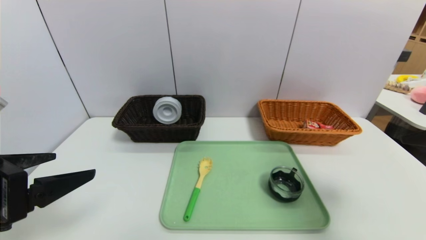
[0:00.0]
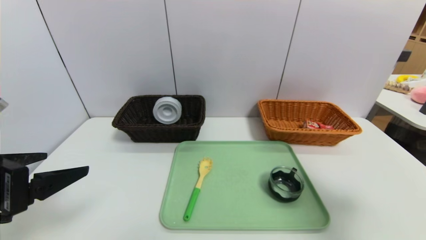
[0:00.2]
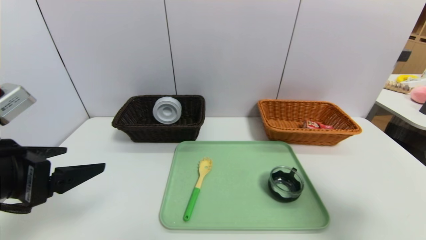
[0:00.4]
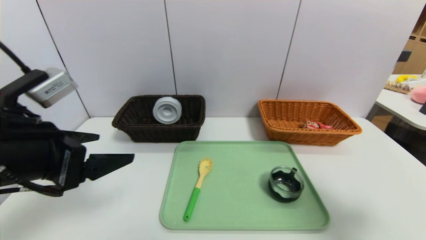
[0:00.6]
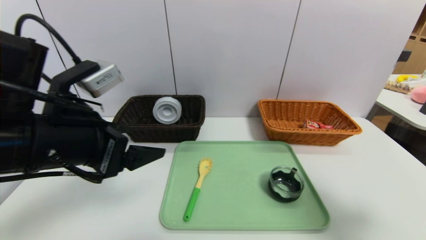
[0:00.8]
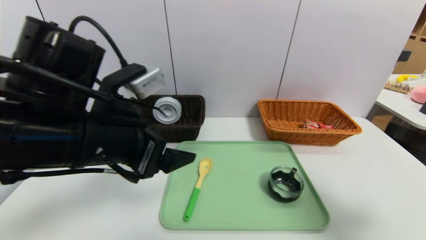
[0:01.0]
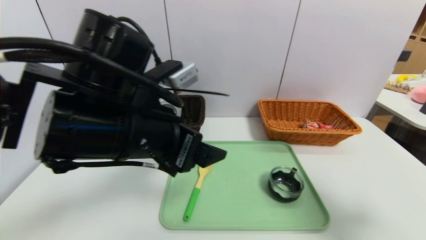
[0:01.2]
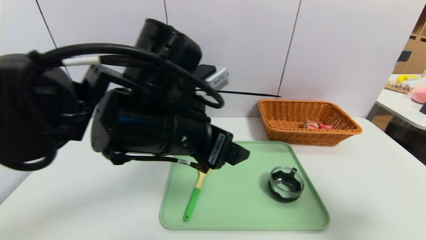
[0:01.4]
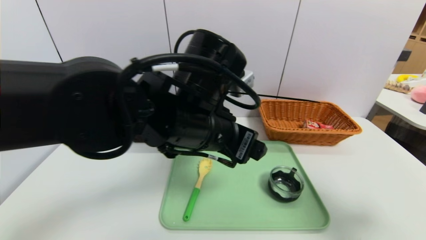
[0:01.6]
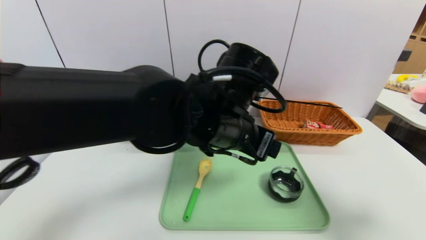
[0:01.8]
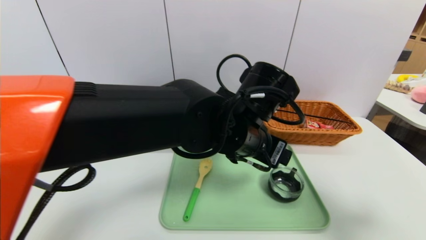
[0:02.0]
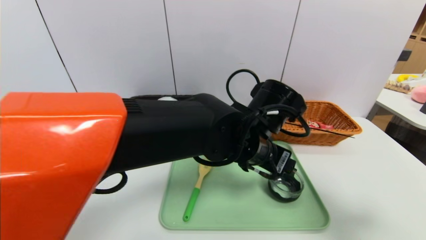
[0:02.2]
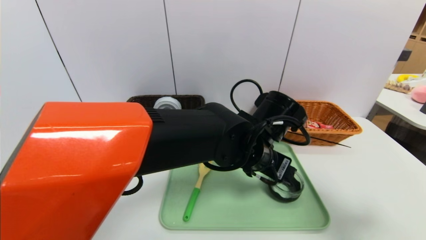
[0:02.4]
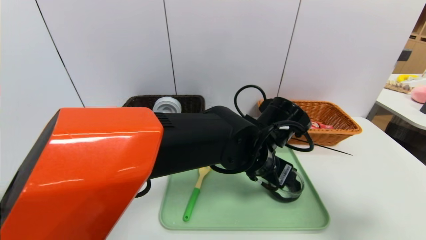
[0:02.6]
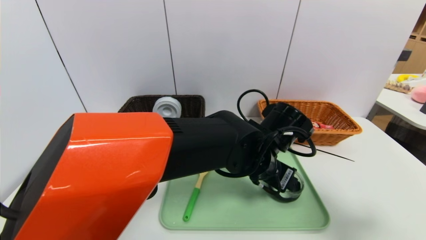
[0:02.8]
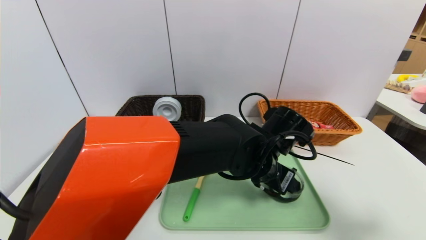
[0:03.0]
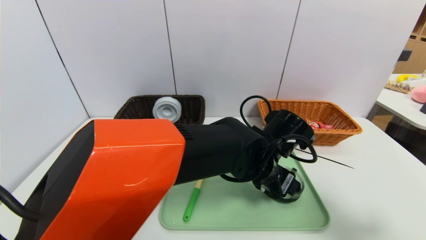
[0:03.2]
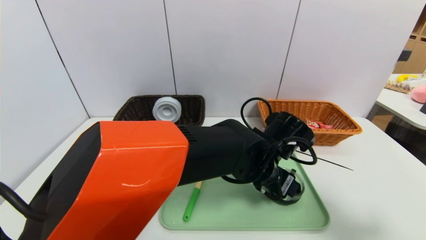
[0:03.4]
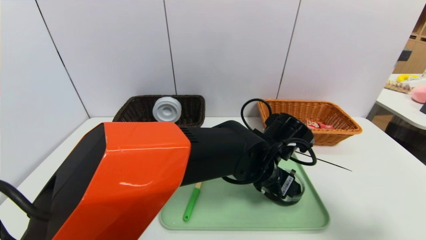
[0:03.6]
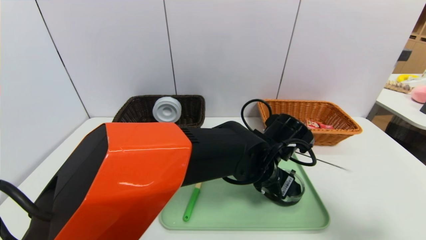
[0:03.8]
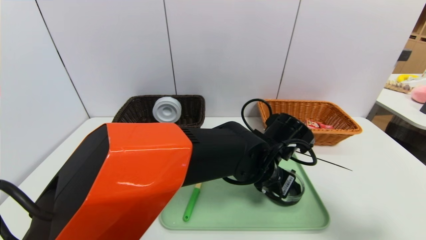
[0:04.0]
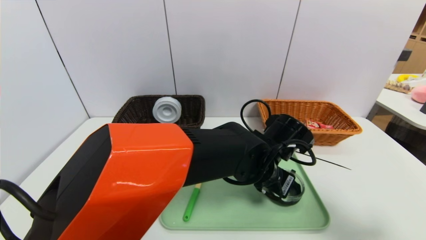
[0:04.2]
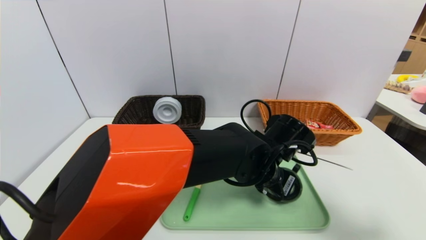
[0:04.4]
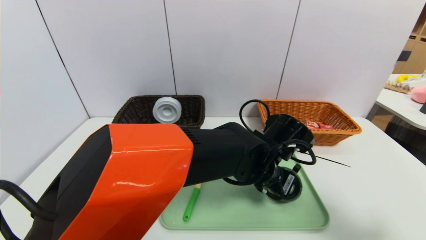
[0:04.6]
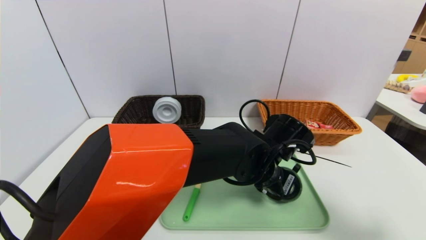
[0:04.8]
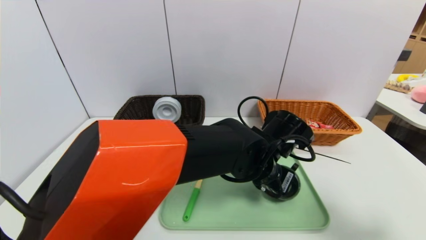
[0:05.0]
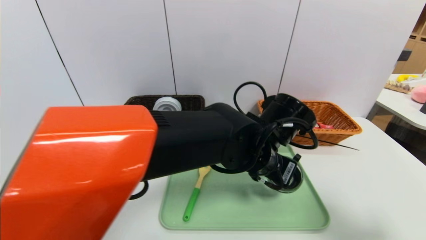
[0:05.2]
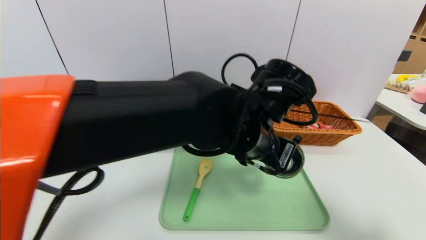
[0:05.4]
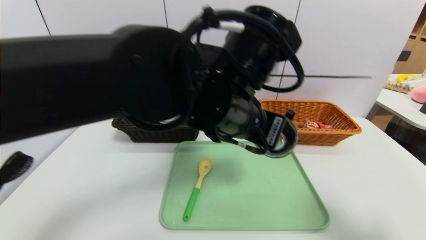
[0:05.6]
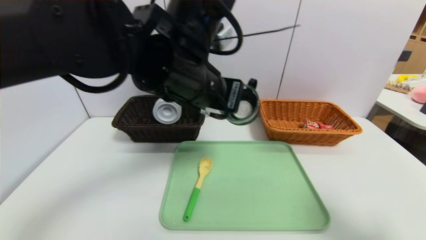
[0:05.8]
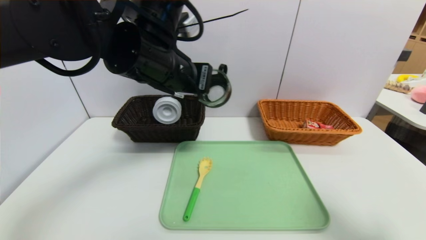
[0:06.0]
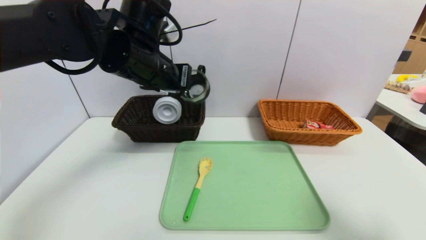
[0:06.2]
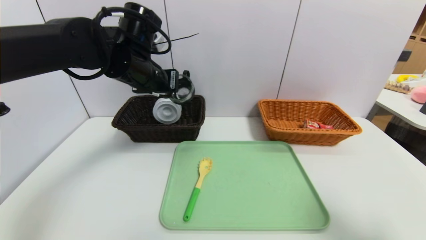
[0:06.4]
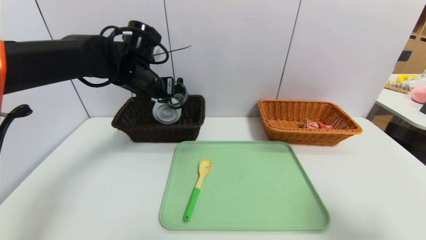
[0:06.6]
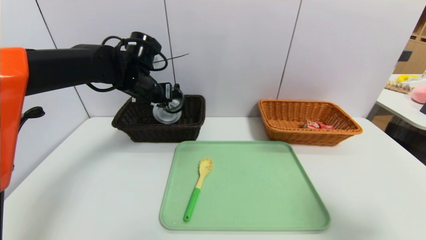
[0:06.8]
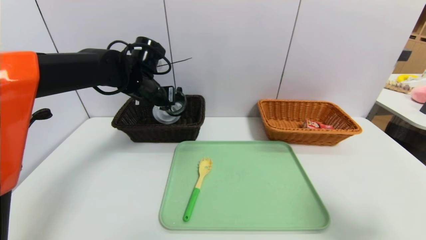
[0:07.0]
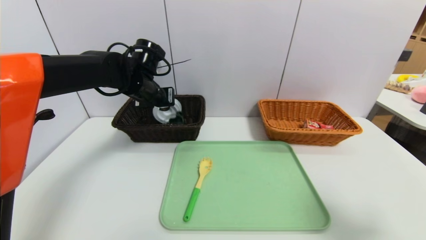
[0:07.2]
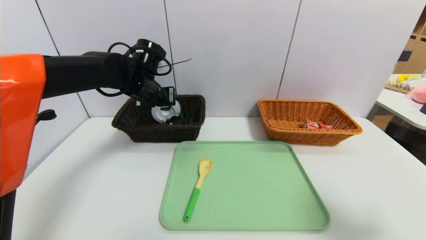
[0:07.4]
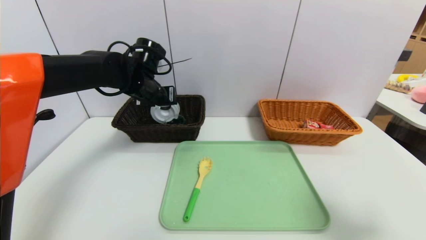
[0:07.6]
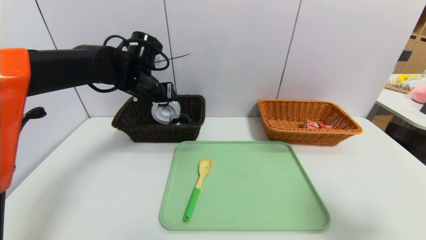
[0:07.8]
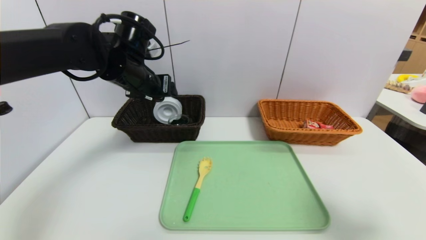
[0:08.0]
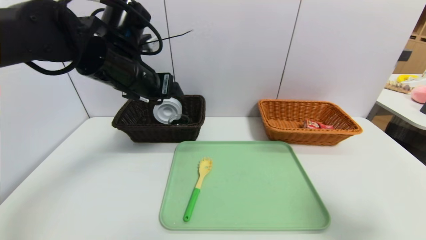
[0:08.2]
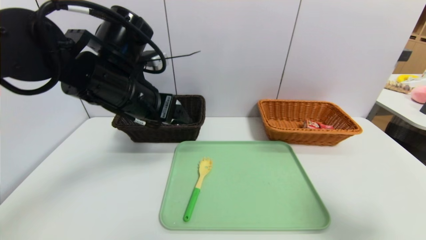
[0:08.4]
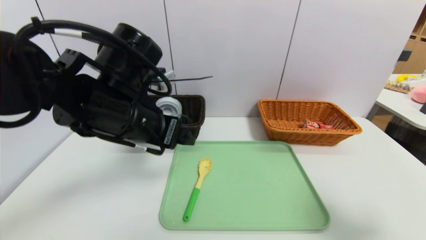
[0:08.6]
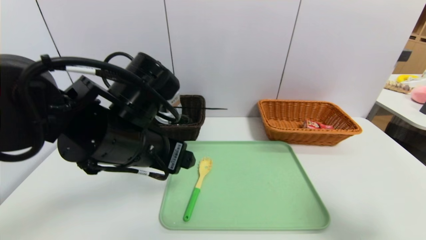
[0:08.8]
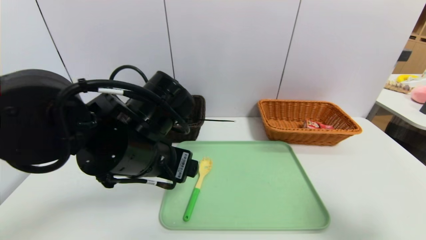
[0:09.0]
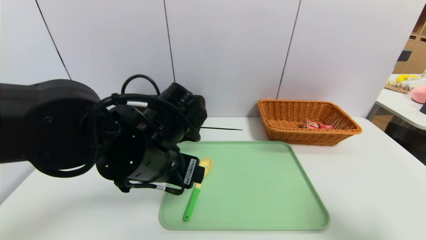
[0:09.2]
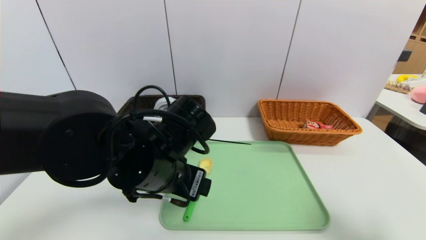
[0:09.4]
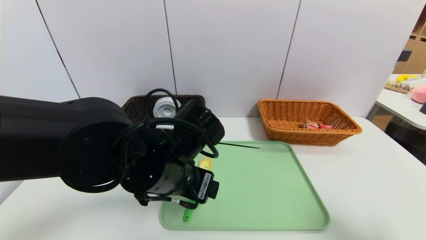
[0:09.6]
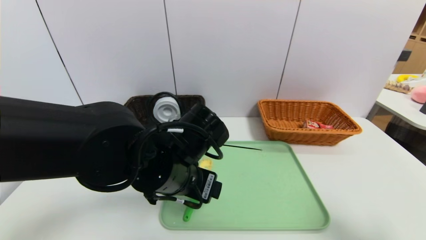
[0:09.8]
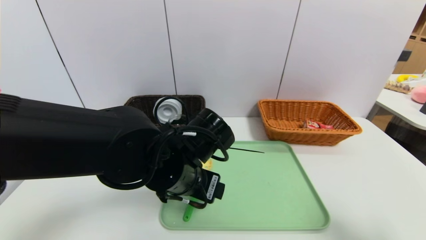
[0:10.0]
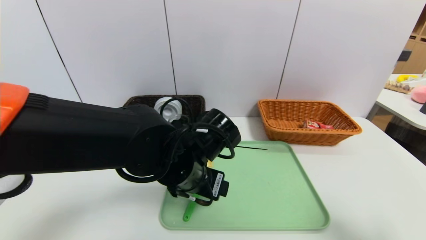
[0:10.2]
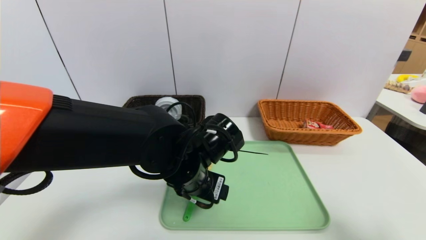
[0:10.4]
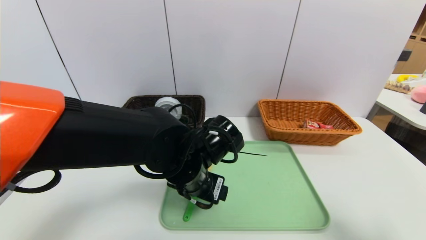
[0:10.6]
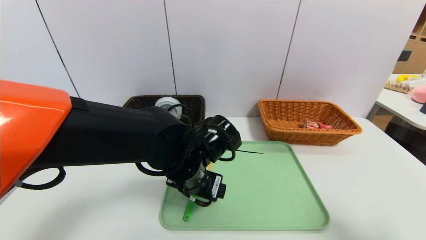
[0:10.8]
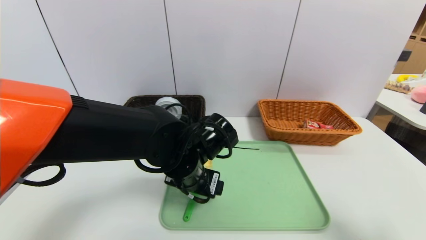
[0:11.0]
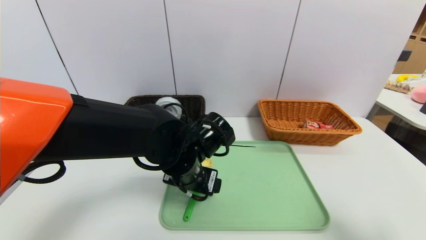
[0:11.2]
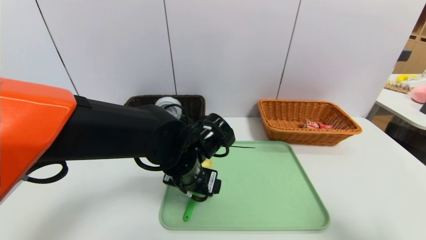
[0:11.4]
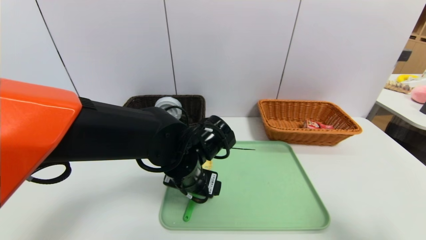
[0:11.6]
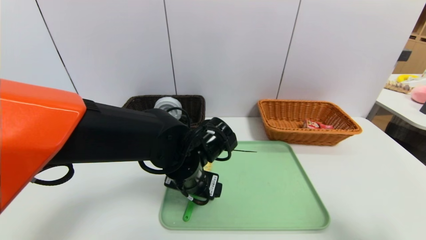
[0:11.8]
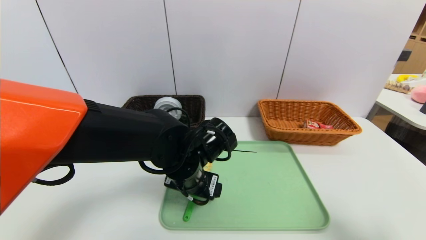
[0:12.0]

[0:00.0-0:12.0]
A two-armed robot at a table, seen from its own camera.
Task of the whole recording: place the food in the right basket with the right gripper, and place the non food items in the left basket with the left gripper.
Step, 0:00.0 to 0:07.6: Grasp the blue cup and put it in the left basket.
0:00.0 to 0:01.6: The left gripper shifts some 25 cm to the right and forward; the right gripper moves about 5 cm.
0:01.6 to 0:03.0: The left gripper goes roughly 15 cm to the right and downward.
0:03.0 to 0:04.4: The left gripper closes its fingers.
0:04.4 to 0:06.0: The left gripper moves upward and to the left, some 25 cm.
0:06.0 to 0:07.6: The left gripper moves forward, downward and to the left, about 15 cm, and opens its fingers.
0:07.6 to 0:09.0: The left gripper is displaced backward by some 20 cm.
0:09.0 to 0:10.4: The left gripper travels downward and to the right by some 10 cm.
0:10.4 to 0:12.0: The grippers move only a little.

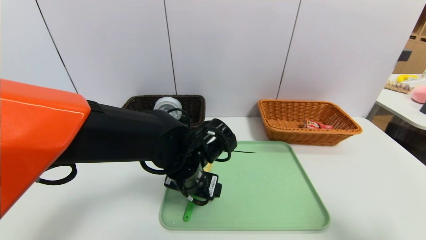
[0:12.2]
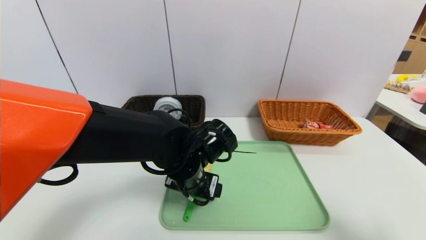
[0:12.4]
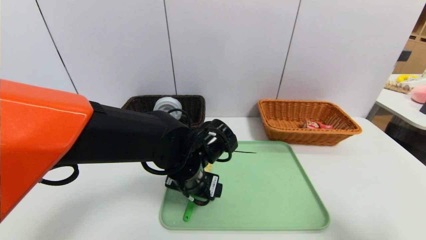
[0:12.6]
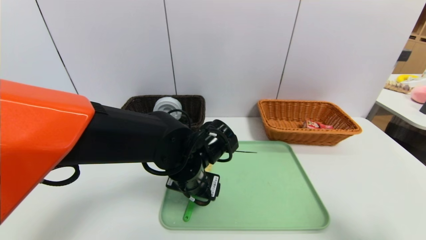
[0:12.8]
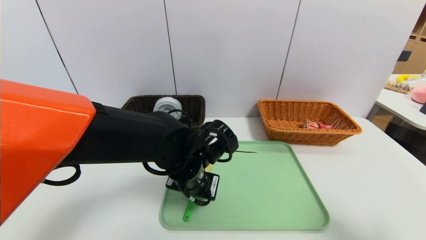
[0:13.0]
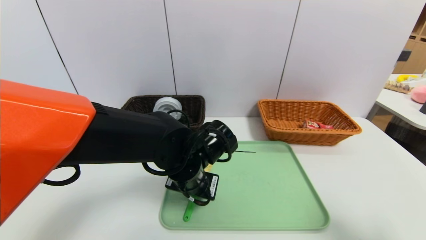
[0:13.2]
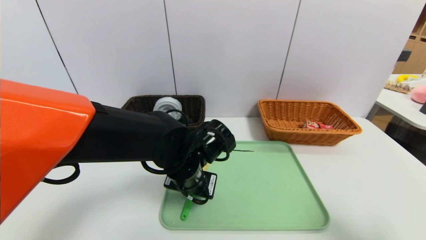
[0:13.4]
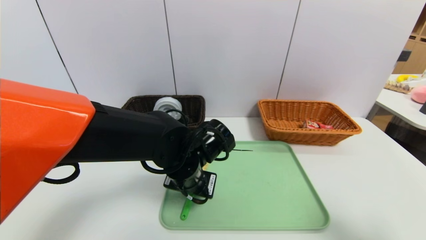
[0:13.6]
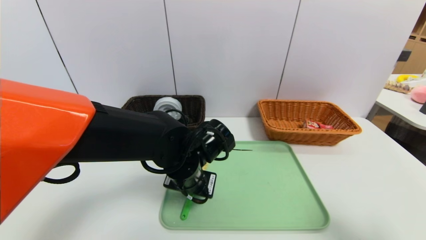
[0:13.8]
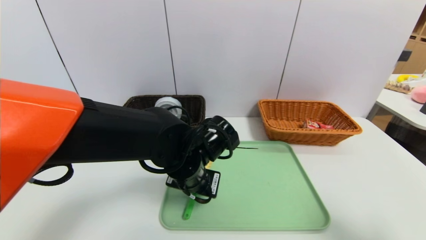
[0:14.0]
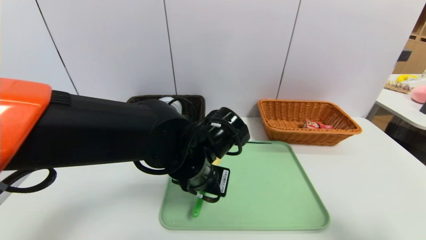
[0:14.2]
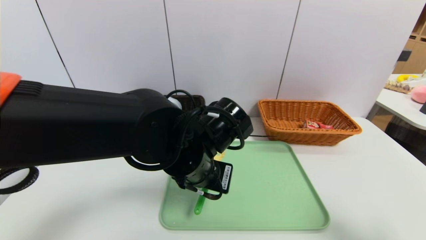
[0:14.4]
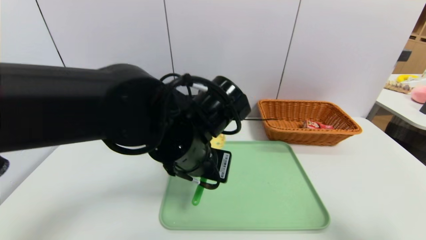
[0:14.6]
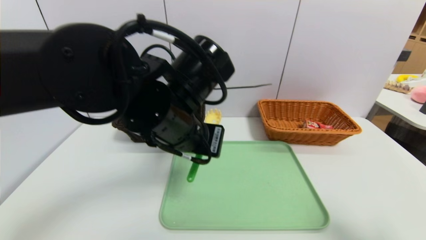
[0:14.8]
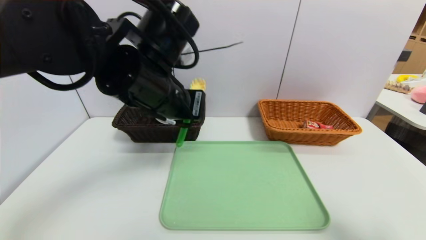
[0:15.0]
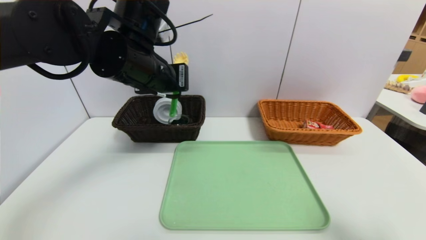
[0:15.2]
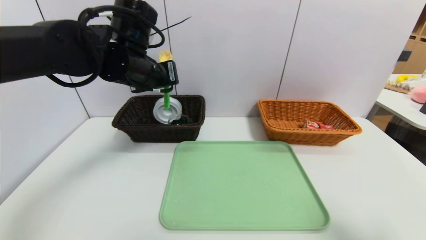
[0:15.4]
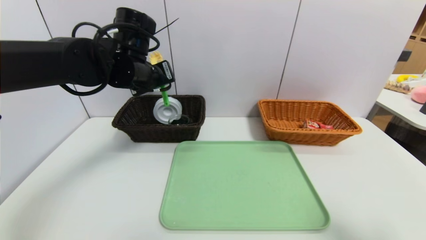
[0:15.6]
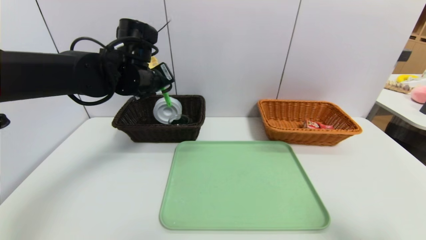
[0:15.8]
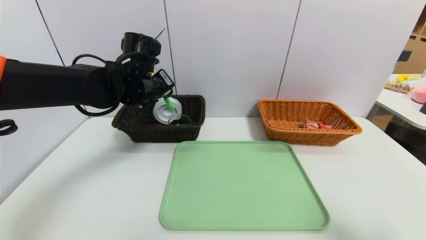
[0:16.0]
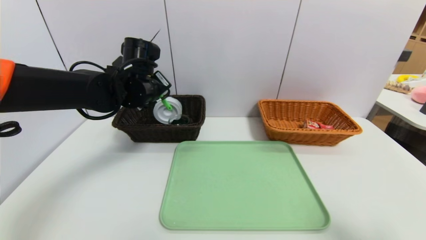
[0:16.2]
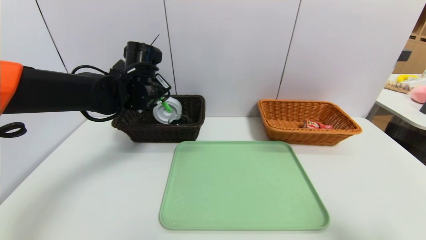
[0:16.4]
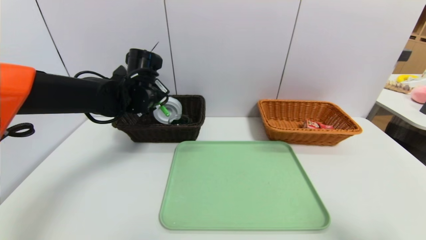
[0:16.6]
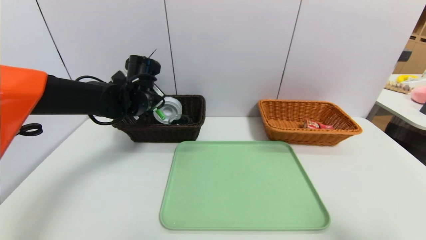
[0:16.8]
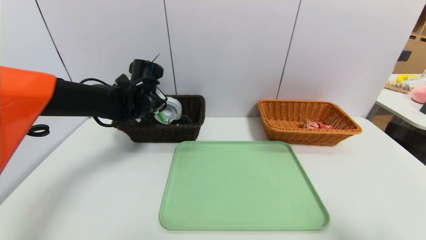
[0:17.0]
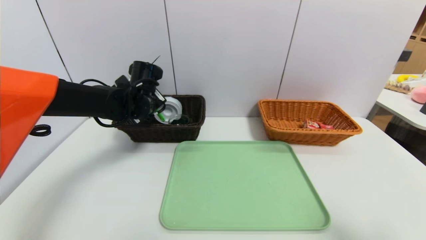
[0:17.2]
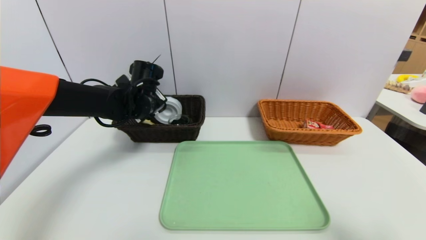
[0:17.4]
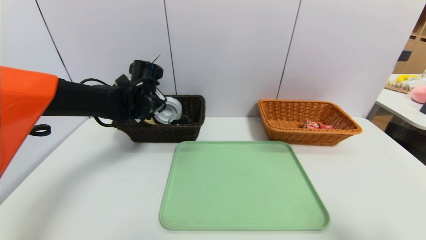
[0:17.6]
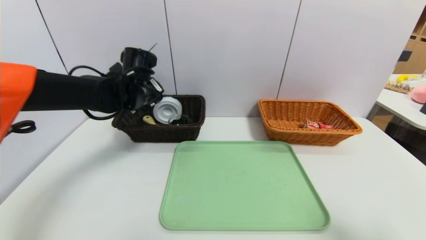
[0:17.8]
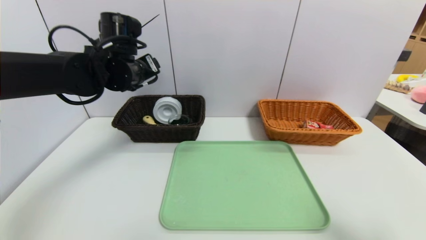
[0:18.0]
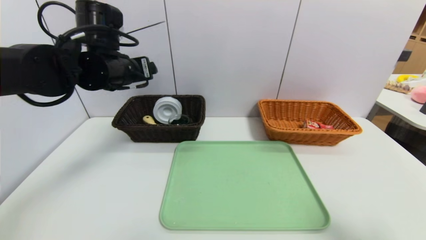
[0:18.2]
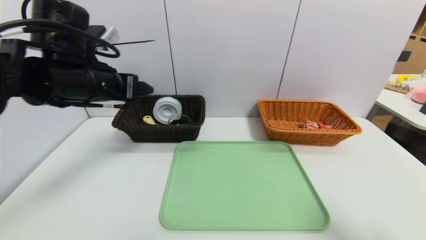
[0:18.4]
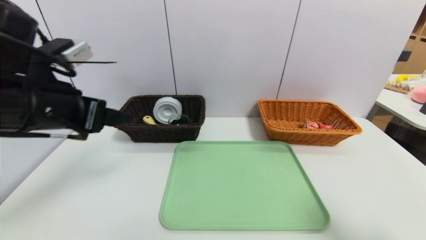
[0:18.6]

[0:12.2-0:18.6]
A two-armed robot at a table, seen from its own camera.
Task of the whole recording: place the food in the right basket with the right gripper, and place the non food items in the left basket with the left gripper.
Step, 0:12.2 to 0:17.6: Grasp the spoon and put it in the left basket.
0:12.2 to 0:13.8: The left gripper closes.
0:13.8 to 0:15.4: The left gripper shifts approximately 20 cm upward, to the left and forward.
0:15.4 to 0:17.0: The left gripper heads downward and forward, covering some 10 cm.
0:17.0 to 0:18.6: The left gripper is displaced backward and upward by approximately 25 cm, and opens.
